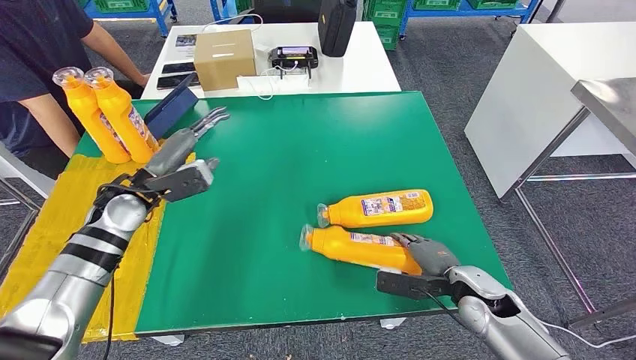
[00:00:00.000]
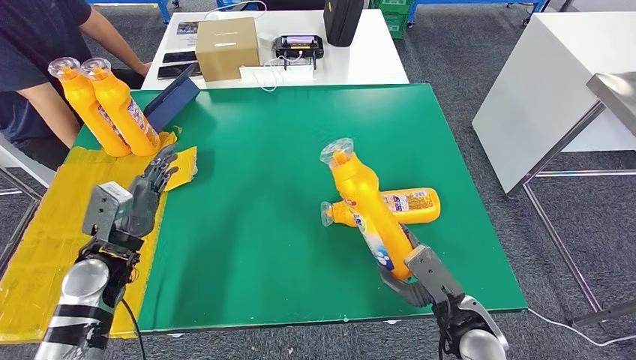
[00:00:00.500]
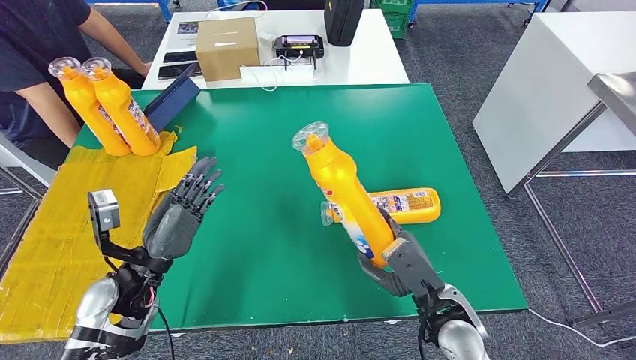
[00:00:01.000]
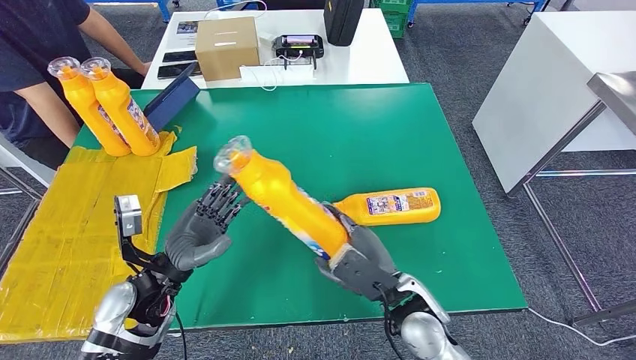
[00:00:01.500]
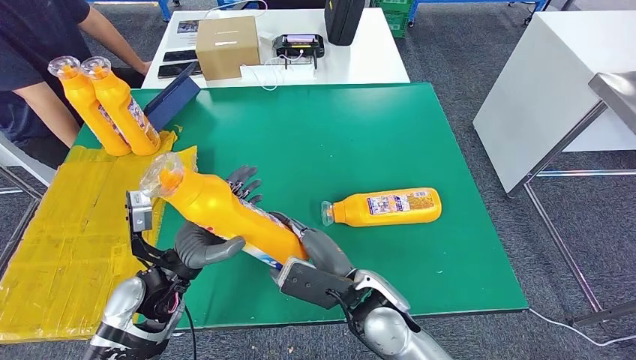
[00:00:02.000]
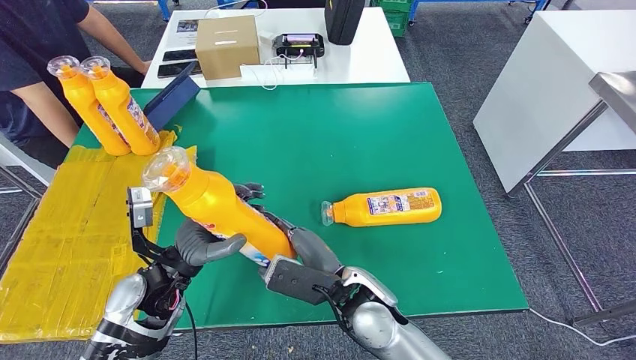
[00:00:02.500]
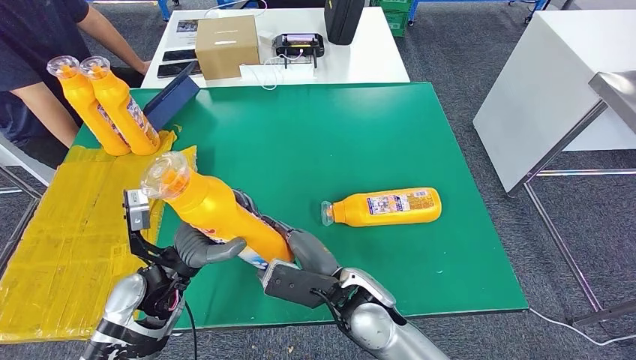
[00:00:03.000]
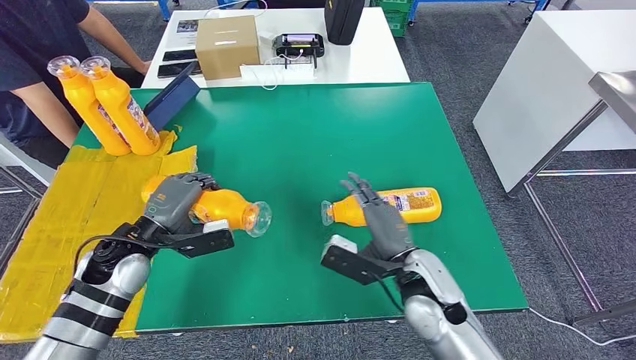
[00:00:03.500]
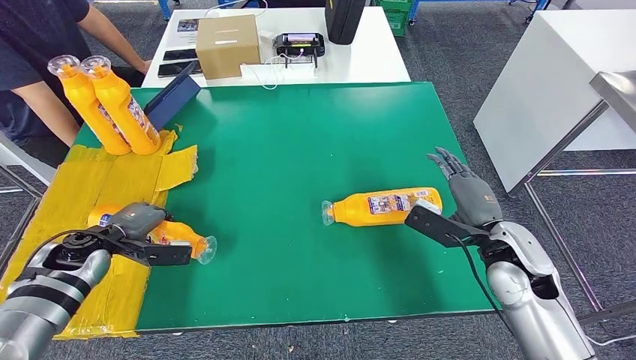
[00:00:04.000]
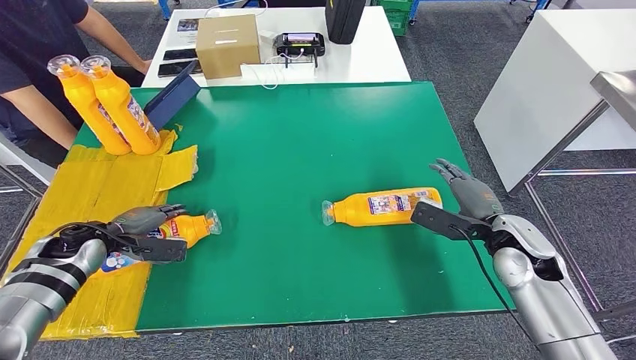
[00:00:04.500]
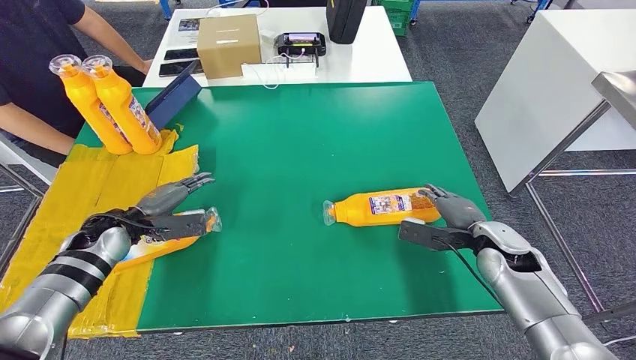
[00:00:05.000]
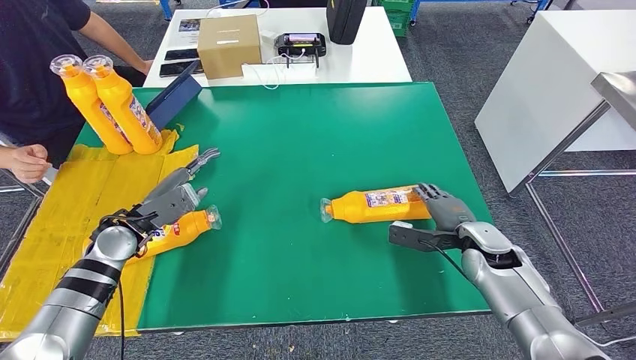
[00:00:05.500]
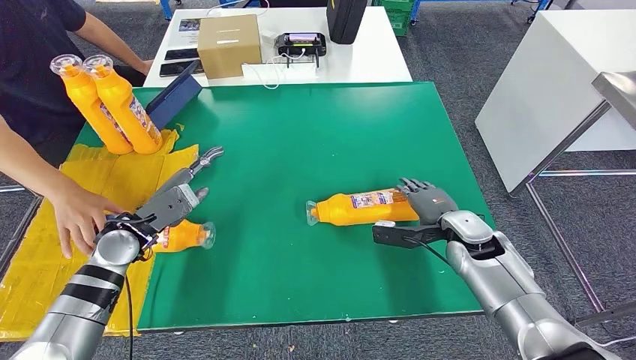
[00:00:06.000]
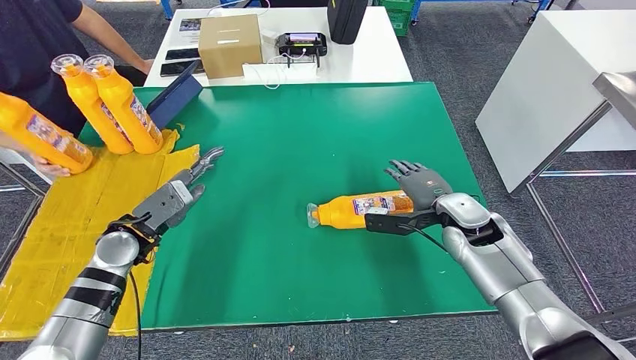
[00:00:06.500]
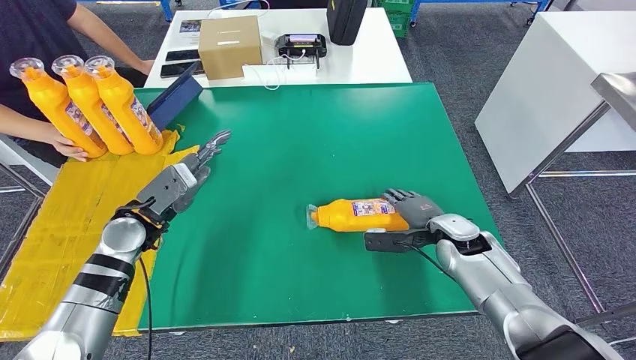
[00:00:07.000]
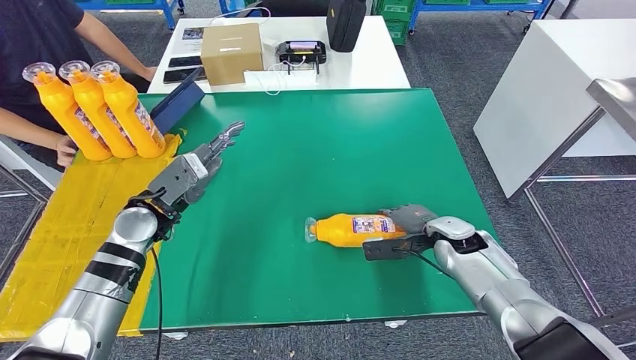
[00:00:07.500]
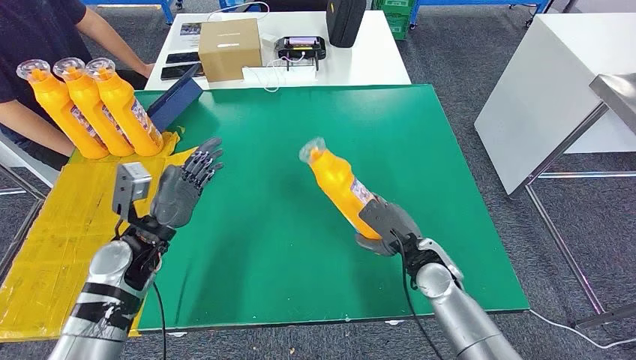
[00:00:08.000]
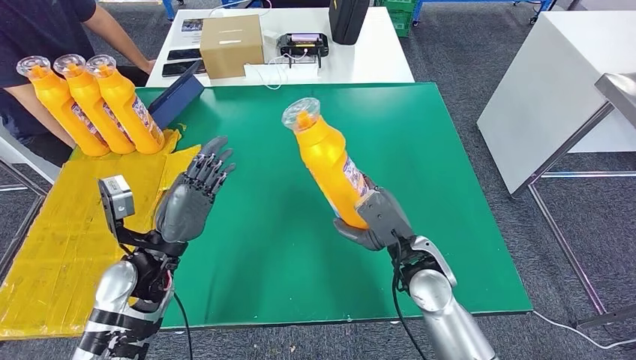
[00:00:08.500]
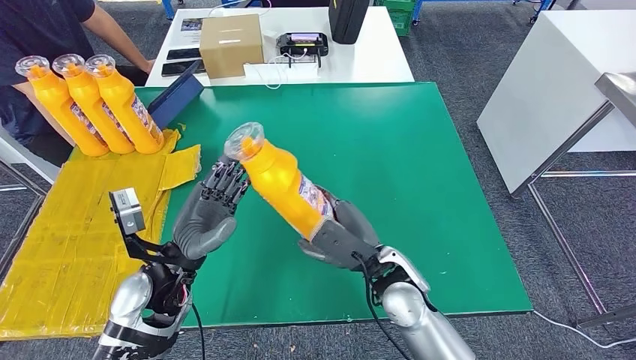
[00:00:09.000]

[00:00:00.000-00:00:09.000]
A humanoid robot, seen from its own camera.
Step, 00:00:02.500 to 00:00:05.500: Flip the fast-moving consumer goods bottle to the front side.
Step, 00:00:07.000 to 00:00:08.000: Pick up the fast-moving consumer goods bottle from the table.

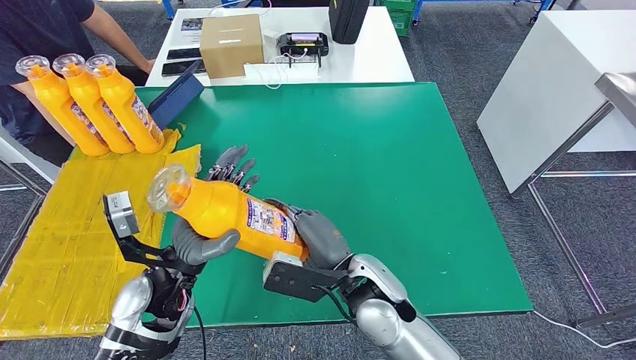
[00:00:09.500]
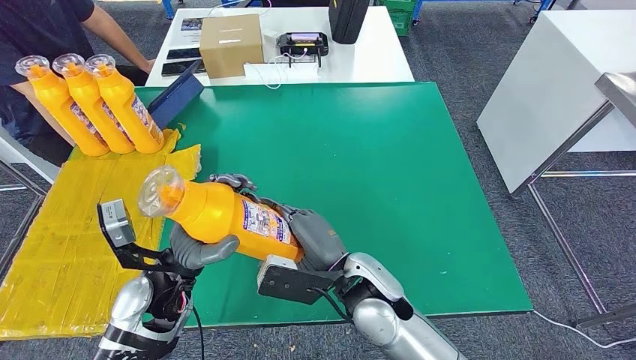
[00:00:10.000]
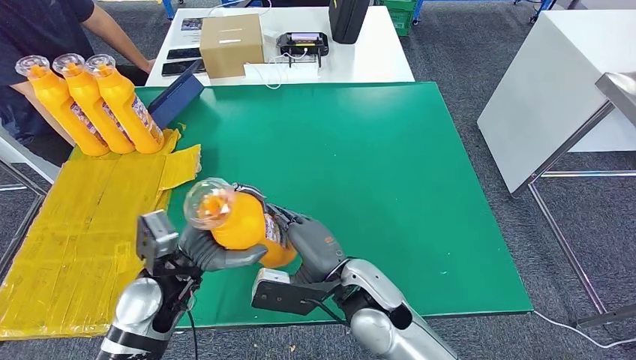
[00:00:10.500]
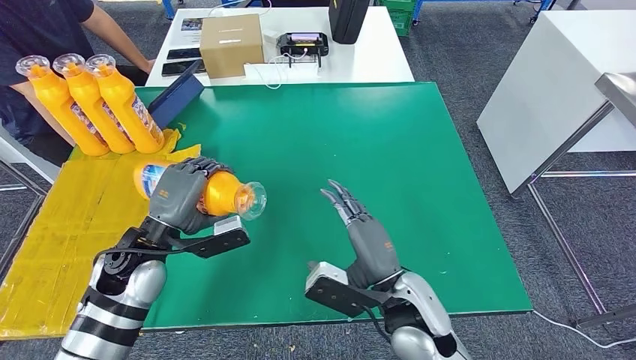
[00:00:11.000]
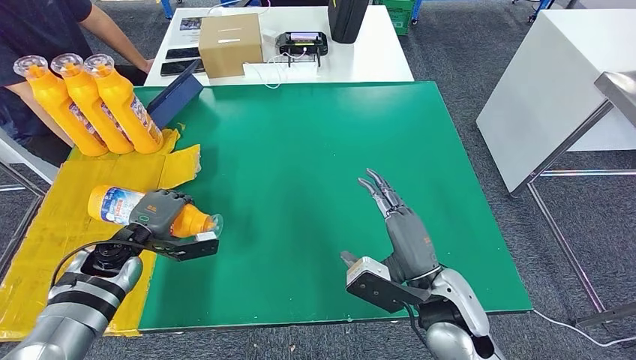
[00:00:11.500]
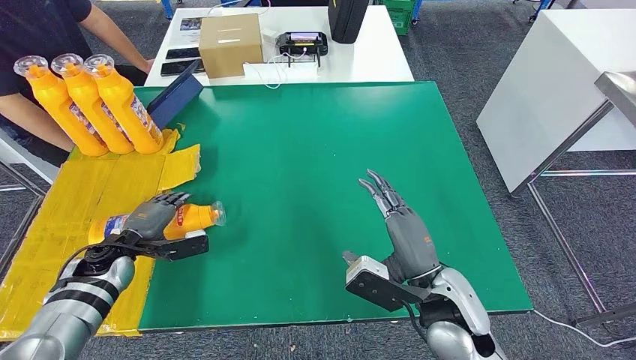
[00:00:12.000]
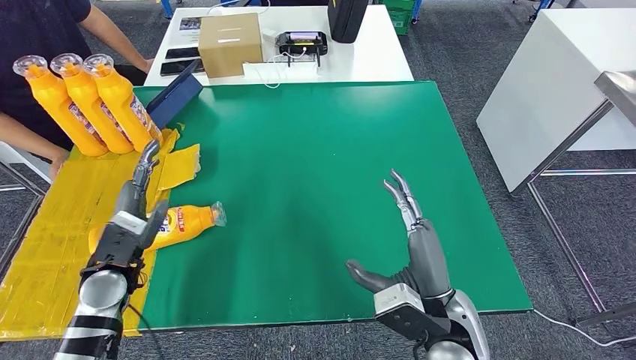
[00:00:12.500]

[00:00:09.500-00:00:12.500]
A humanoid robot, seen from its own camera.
Step, 00:00:09.500 to 00:00:12.500: Flip the fast-moving consumer goods bottle to the front side.
00:00:09.500 to 00:00:11.000: The left hand is displaced to the left by some 5 cm. Meanwhile the right hand goes some 5 cm to the right.
00:00:11.000 to 00:00:12.500: The right hand changes place by about 5 cm. The left hand moves to the left, roughly 5 cm.
